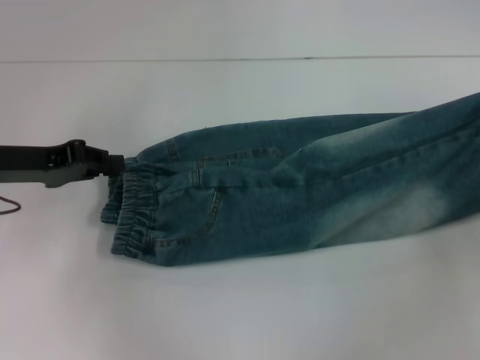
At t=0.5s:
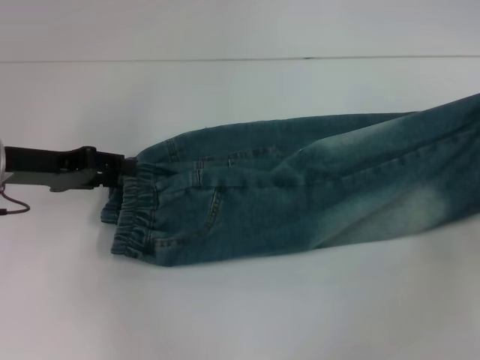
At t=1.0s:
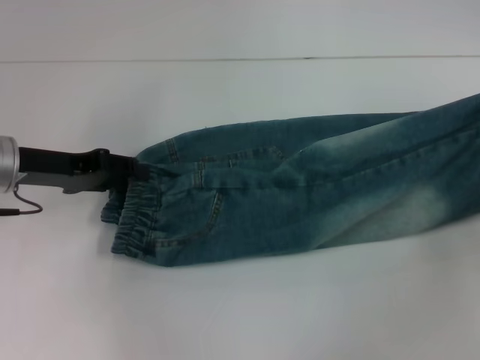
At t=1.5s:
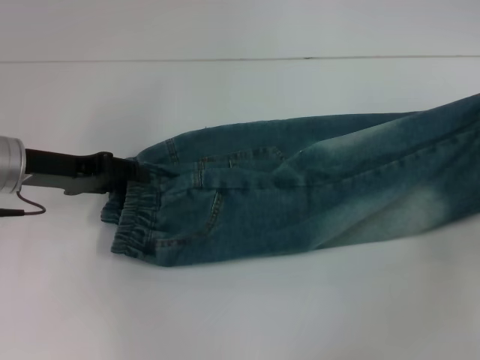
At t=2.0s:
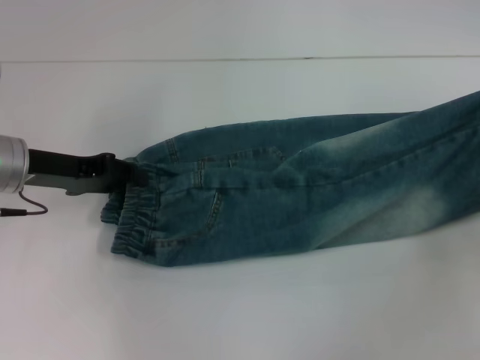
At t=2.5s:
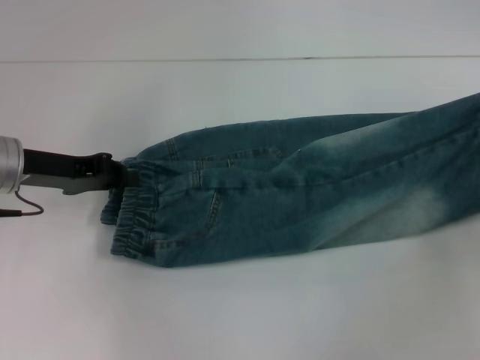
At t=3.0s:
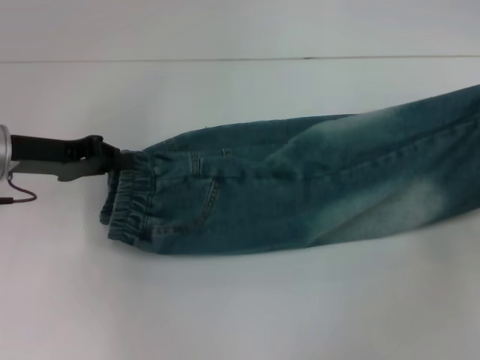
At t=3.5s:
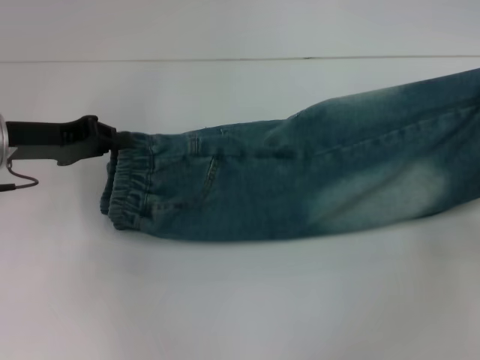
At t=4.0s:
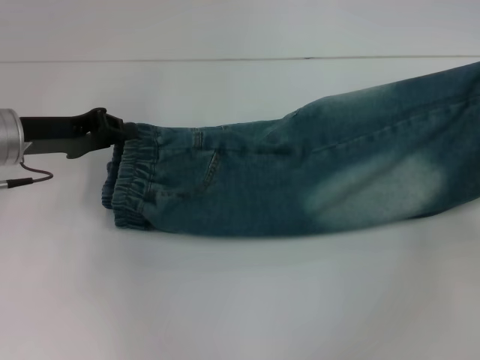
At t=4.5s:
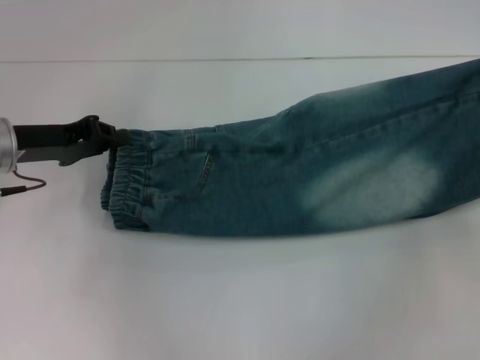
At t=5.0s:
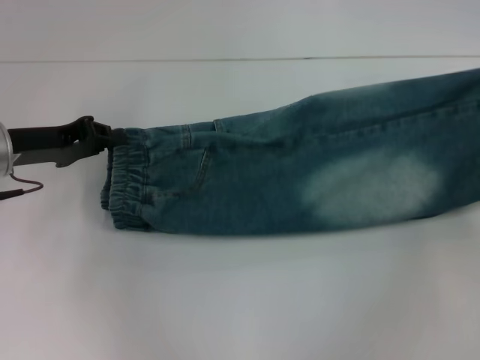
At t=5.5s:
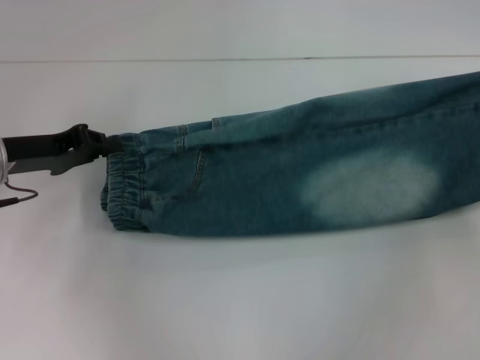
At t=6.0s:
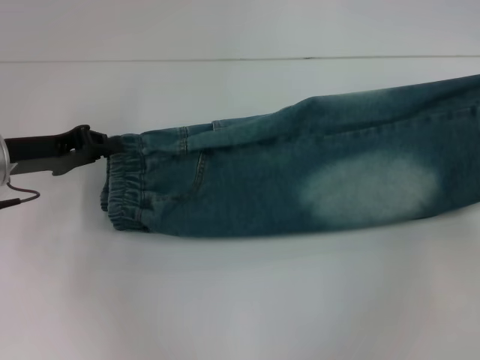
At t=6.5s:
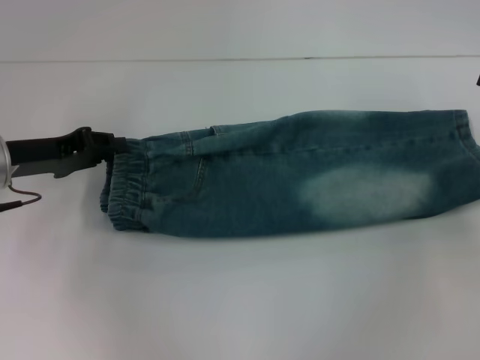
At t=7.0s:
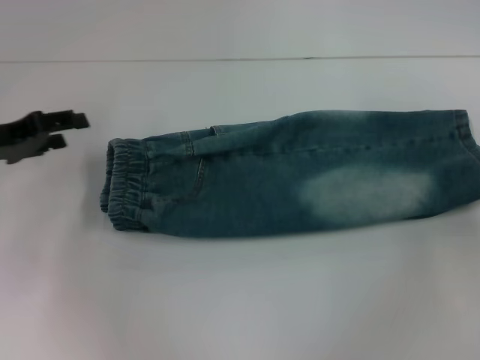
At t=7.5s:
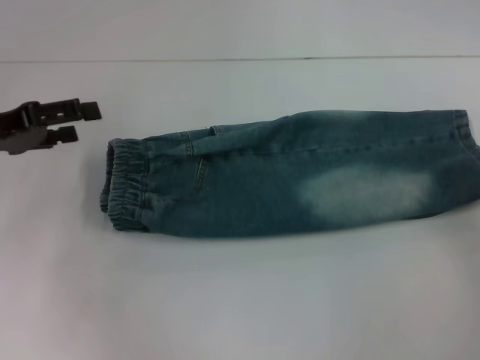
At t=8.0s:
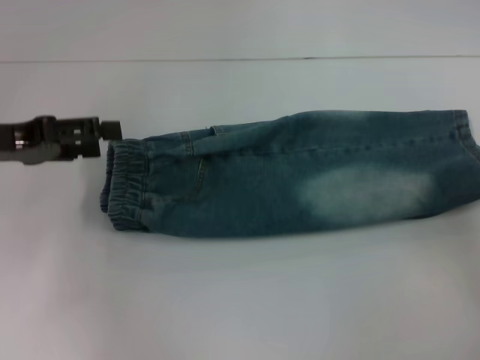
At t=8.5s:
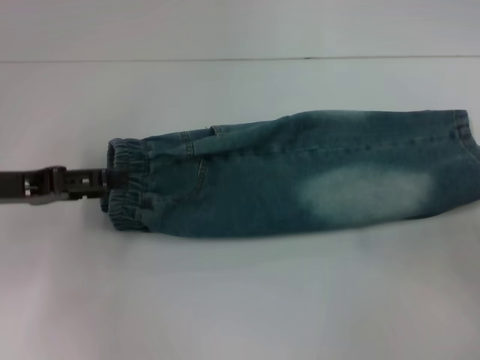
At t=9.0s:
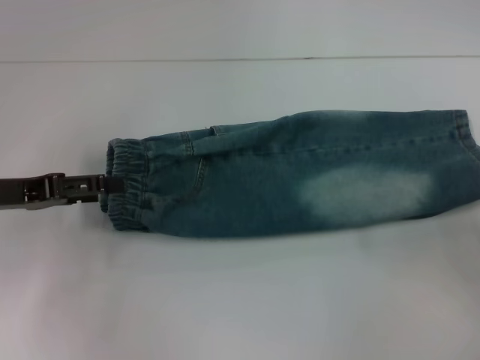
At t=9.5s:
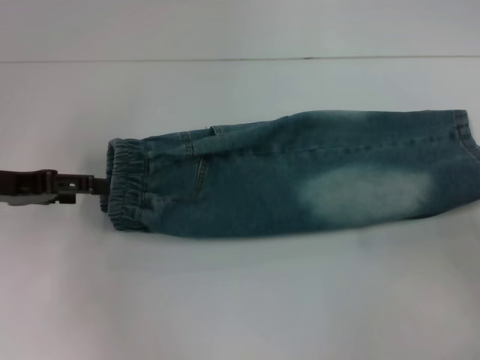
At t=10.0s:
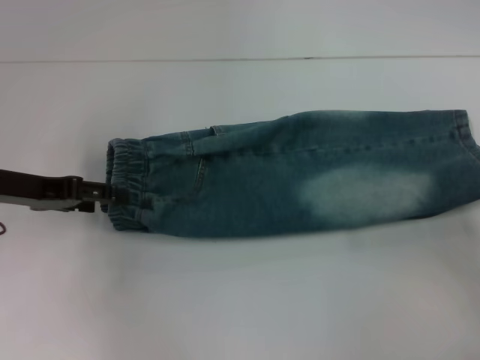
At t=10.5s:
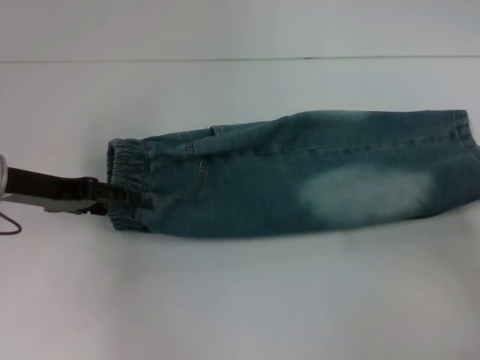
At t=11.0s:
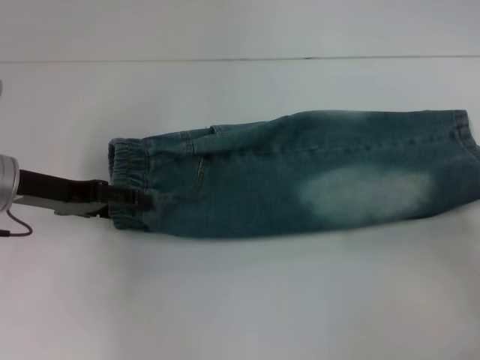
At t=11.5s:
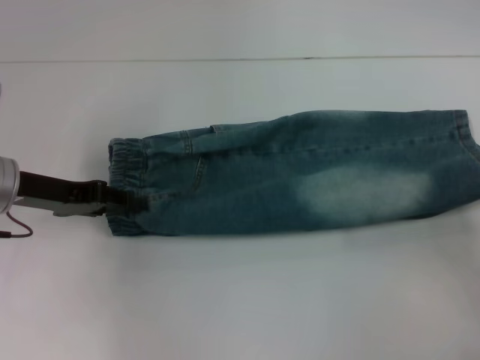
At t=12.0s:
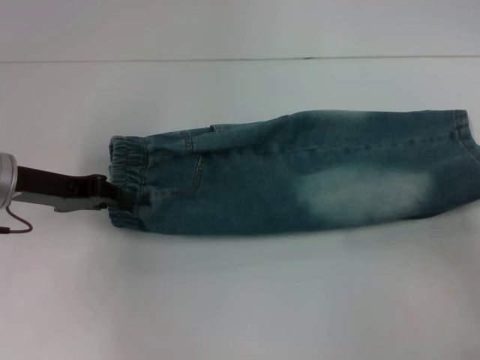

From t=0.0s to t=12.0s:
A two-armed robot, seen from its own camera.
Step, from t=0.0s to t=7.0s: Fold upward with your right hand.
From t=0.0s to t=2.0s: The grippers make only small movements.
From t=2.0s to t=4.0s: The left gripper closes.
From t=4.0s to t=6.0s: The grippers stay close to where they were, moving slightly.
From t=6.0s to t=8.0s: The left gripper is displaced upward by some 5 cm, and opens its fingers. The right gripper goes approximately 10 cm backward, and opens up.
From t=8.0s to t=10.0s: The grippers stay close to where they were, moving slightly.
From t=10.0s to t=12.0s: The left gripper closes its fingers.

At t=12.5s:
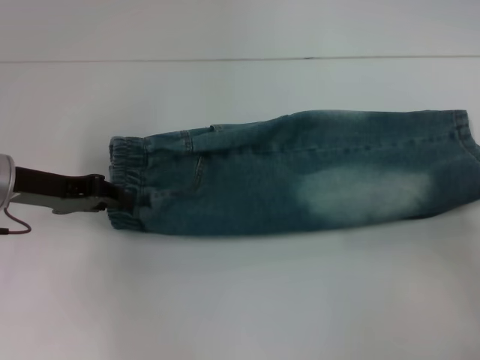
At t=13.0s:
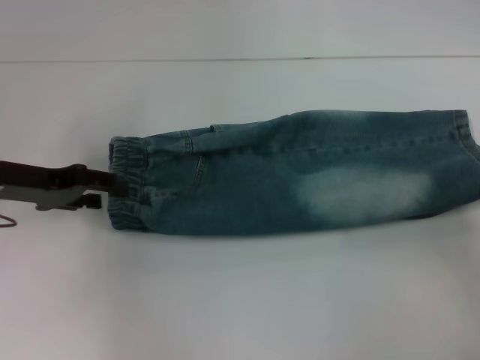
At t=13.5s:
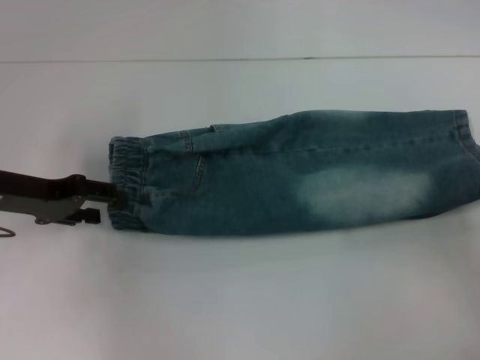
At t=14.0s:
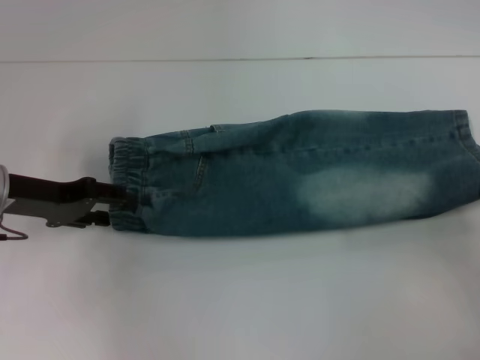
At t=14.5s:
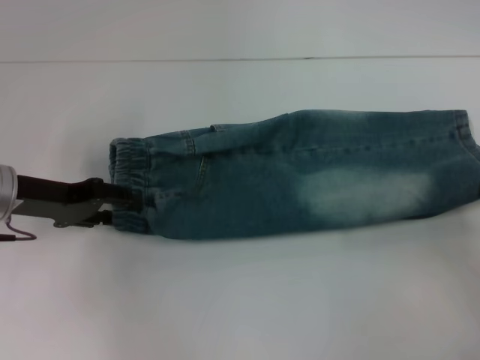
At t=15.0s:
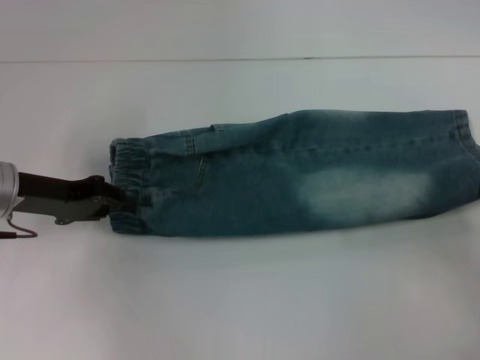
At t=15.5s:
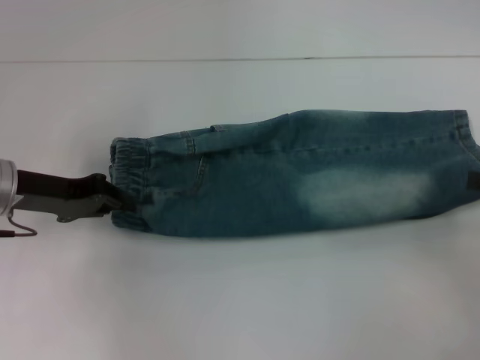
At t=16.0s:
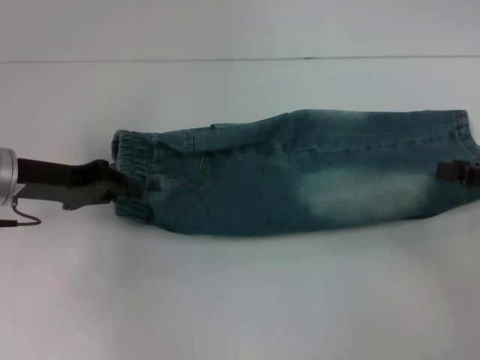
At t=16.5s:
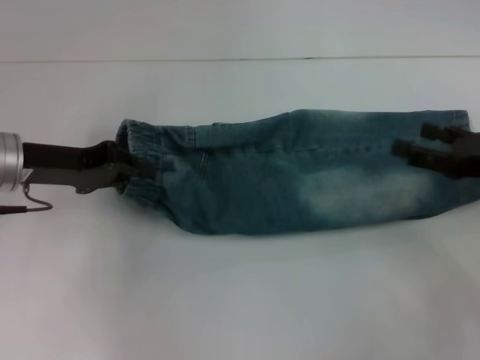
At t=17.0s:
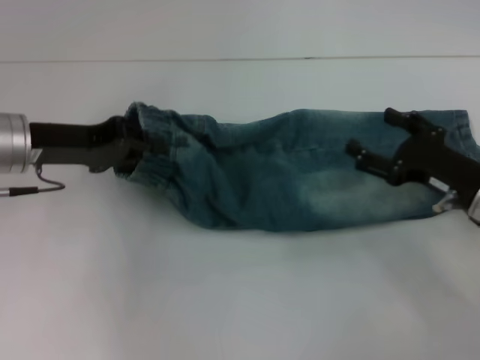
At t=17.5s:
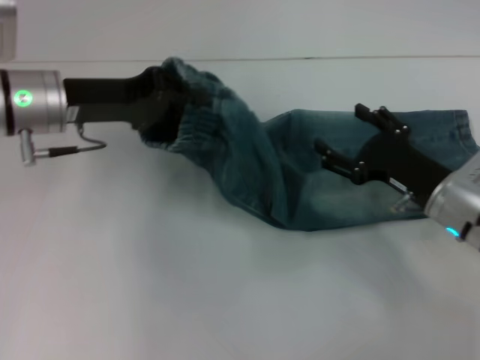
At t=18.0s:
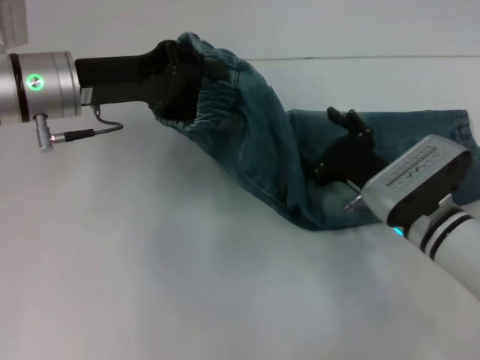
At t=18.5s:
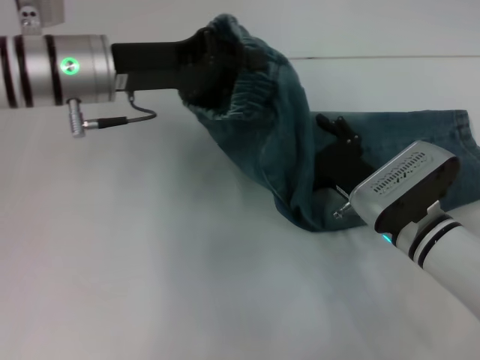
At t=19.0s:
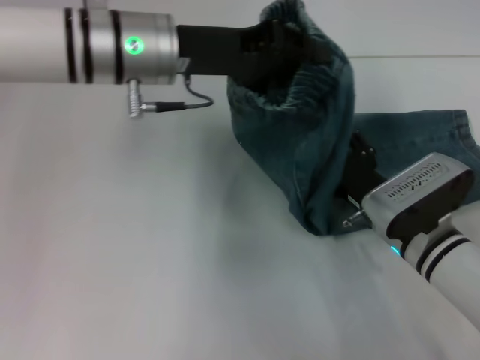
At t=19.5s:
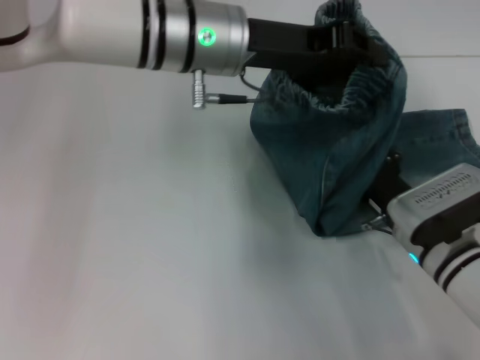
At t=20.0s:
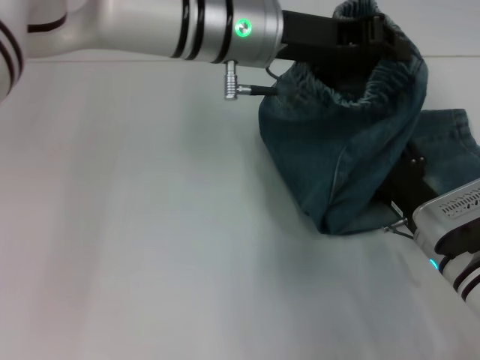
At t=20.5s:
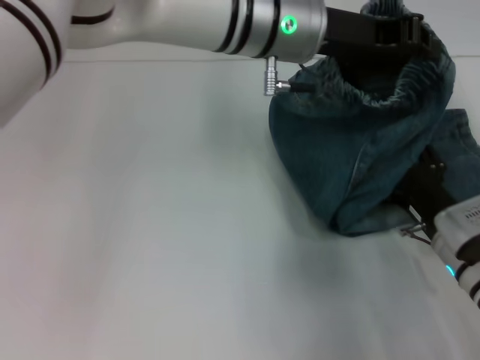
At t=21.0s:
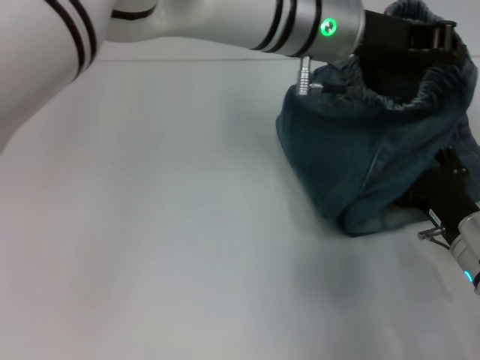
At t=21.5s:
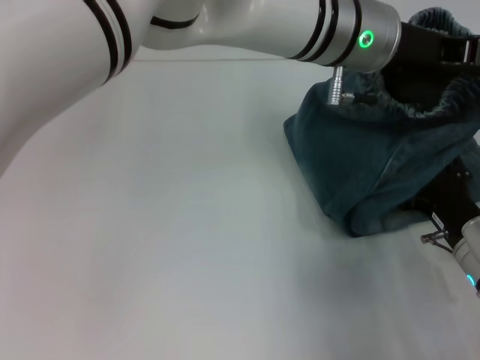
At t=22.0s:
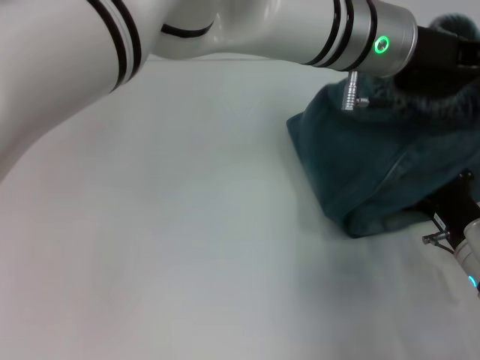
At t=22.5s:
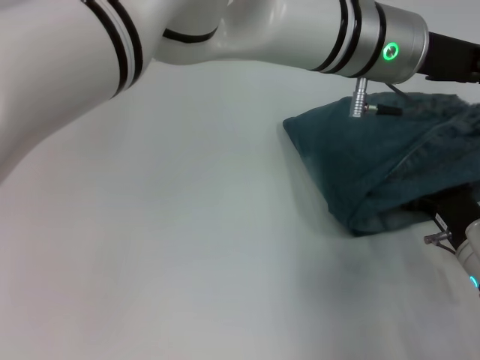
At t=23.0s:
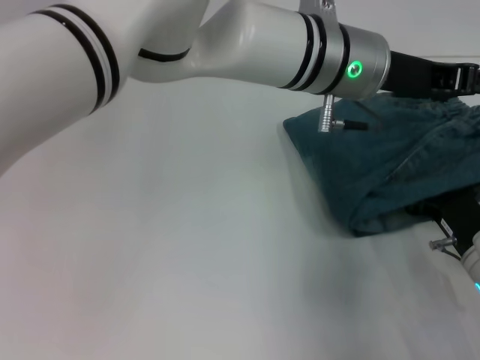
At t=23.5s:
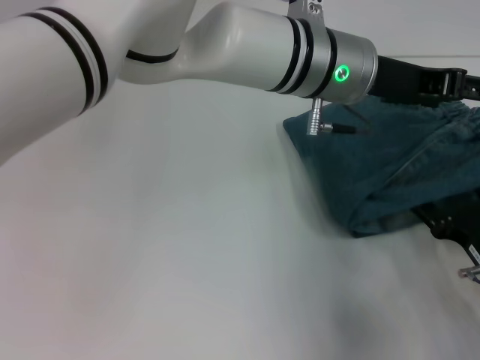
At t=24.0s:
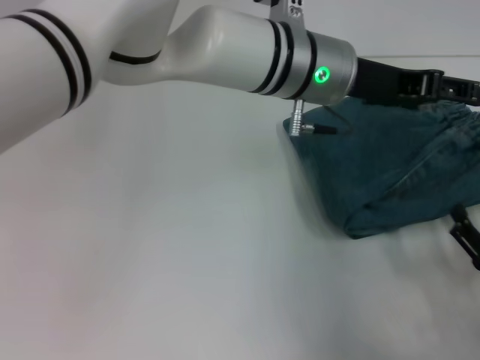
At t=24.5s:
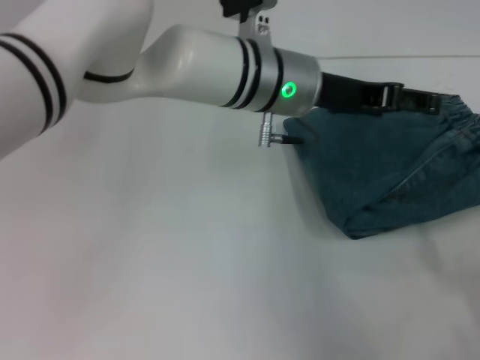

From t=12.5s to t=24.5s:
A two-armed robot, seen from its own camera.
Step, from t=12.5s to t=15.0s: Hold the waistband with your left hand.
Step, from t=15.5s to t=21.0s: Press the middle of the pants with your right hand.
From t=12.5s to t=14.5s: The left gripper opens its fingers.
From t=14.5s to t=16.5s: The right gripper travels to the left by about 10 cm. The left gripper closes up.
From t=16.5s to t=18.5s: The left gripper shifts roughly 10 cm to the right and upward. The right gripper heads to the left and downward, covering about 15 cm.
From t=18.5s to t=20.5s: The left gripper travels to the right by about 15 cm; the right gripper is displaced to the right by roughly 5 cm.
From t=20.5s to t=22.5s: The left gripper is displaced to the right by approximately 5 cm, and opens.
From t=22.5s to t=24.5s: The left gripper moves to the left, some 5 cm, and opens up. The right gripper moves backward and to the right, approximately 15 cm.

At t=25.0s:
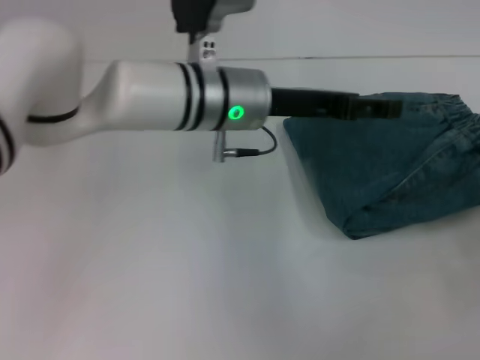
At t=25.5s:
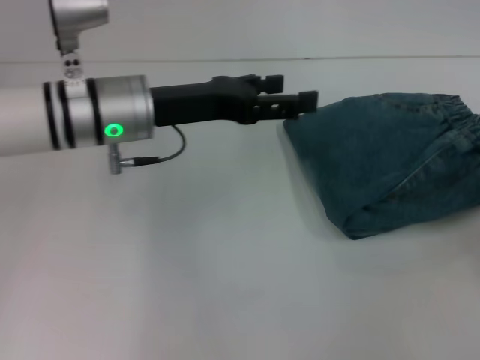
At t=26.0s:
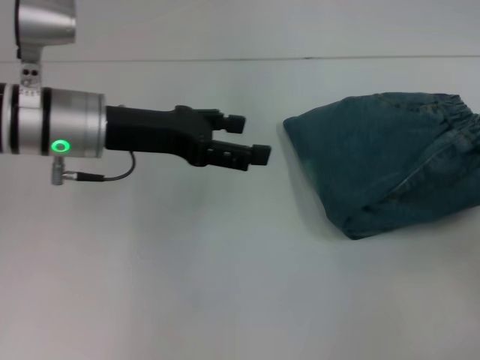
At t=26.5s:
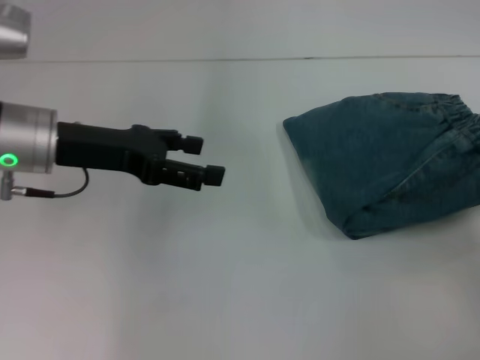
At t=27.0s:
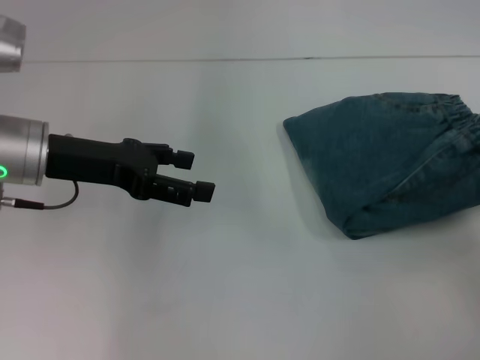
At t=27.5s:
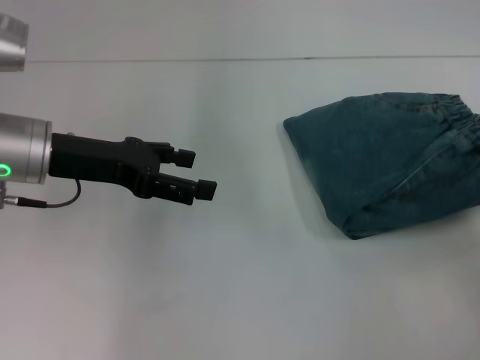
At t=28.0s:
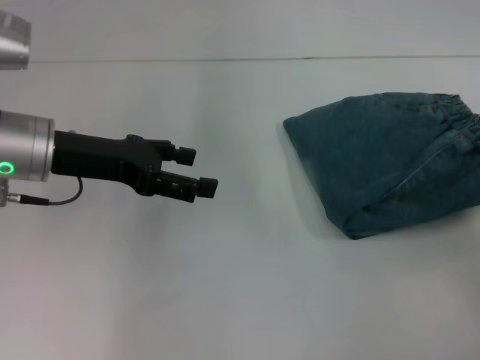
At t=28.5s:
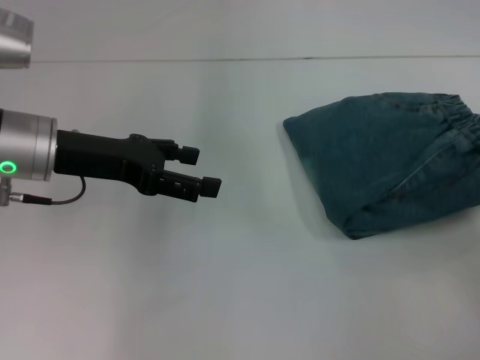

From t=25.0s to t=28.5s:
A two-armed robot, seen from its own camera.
From t=25.0s to t=27.0s: The left gripper is displaced to the left by roughly 20 cm. The right gripper is displaced upward by roughly 10 cm.
From t=27.0s to t=28.5s: Both grippers stay put.
